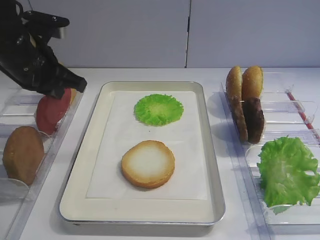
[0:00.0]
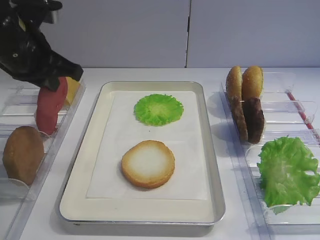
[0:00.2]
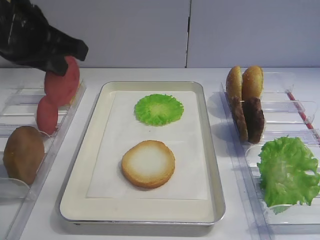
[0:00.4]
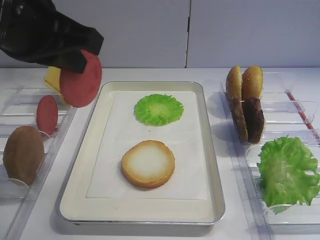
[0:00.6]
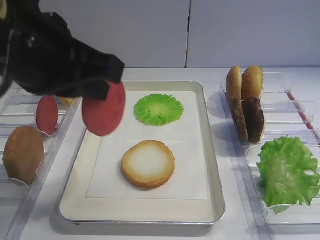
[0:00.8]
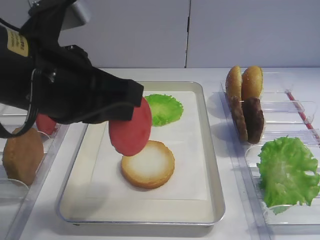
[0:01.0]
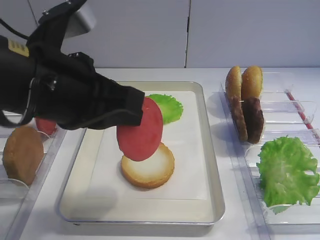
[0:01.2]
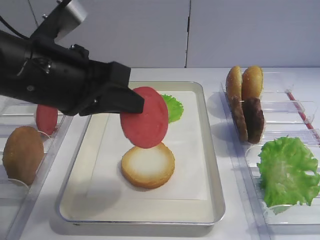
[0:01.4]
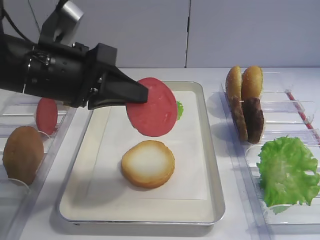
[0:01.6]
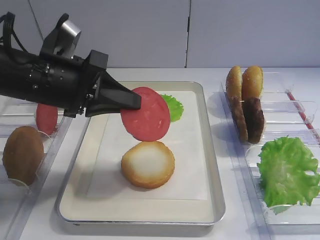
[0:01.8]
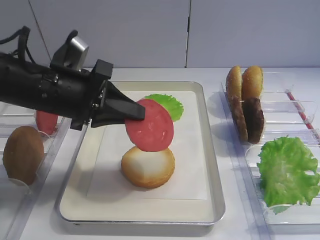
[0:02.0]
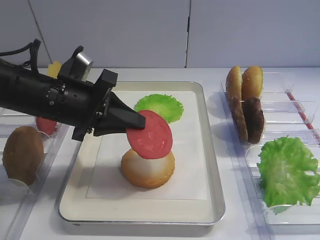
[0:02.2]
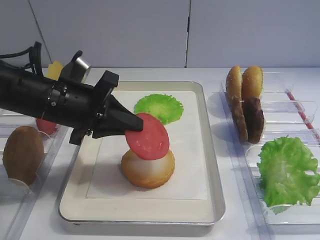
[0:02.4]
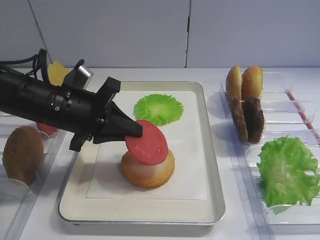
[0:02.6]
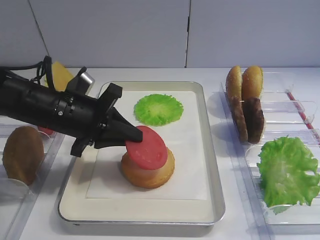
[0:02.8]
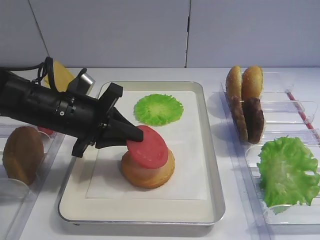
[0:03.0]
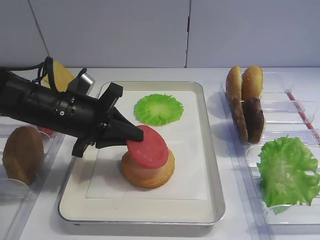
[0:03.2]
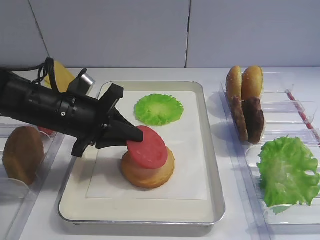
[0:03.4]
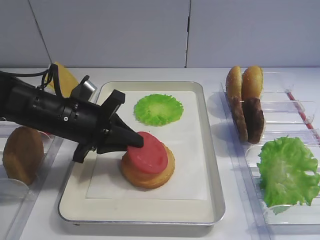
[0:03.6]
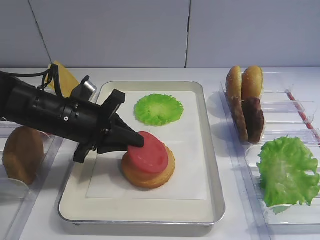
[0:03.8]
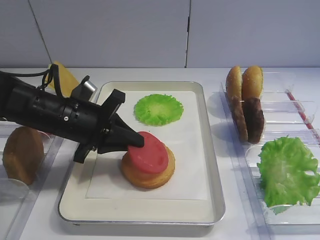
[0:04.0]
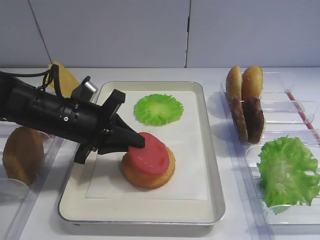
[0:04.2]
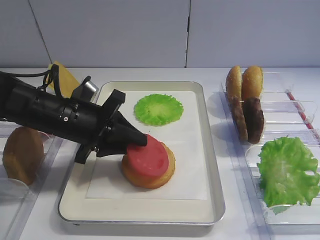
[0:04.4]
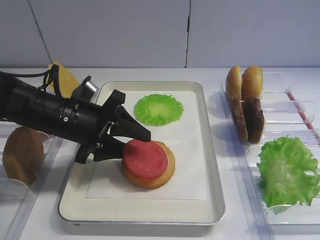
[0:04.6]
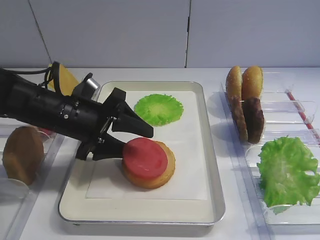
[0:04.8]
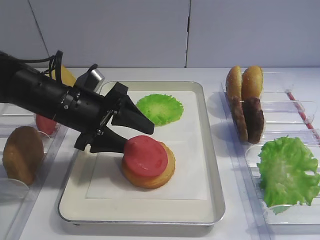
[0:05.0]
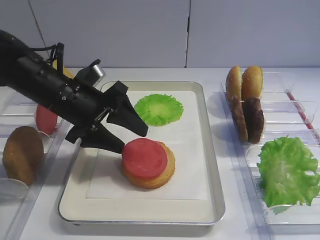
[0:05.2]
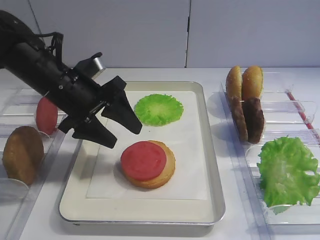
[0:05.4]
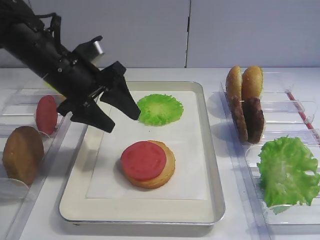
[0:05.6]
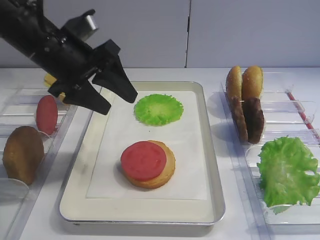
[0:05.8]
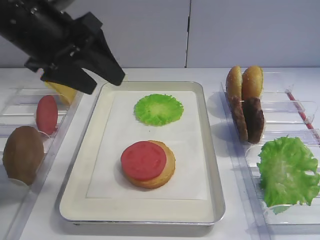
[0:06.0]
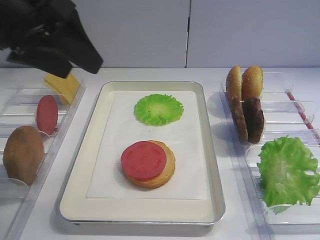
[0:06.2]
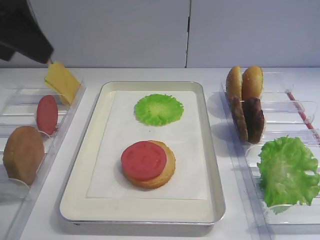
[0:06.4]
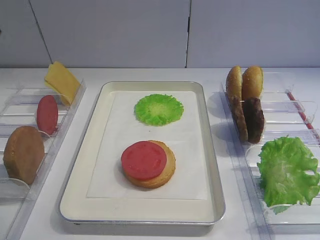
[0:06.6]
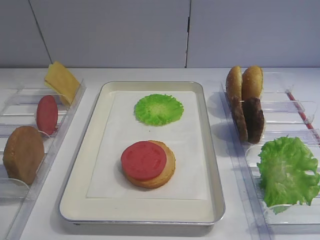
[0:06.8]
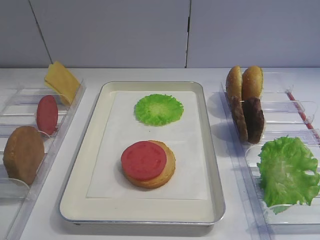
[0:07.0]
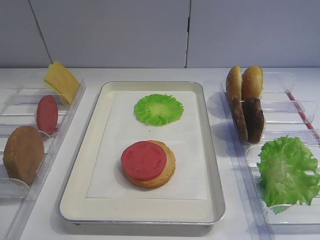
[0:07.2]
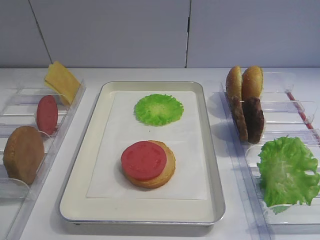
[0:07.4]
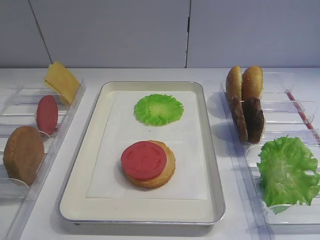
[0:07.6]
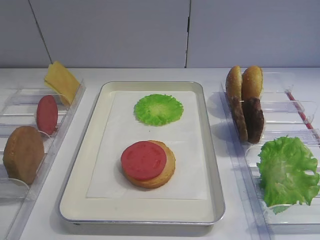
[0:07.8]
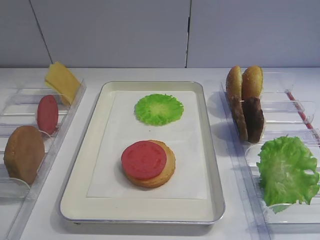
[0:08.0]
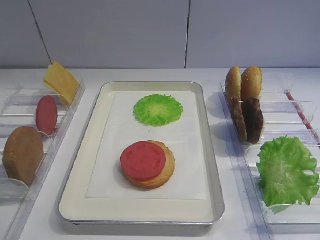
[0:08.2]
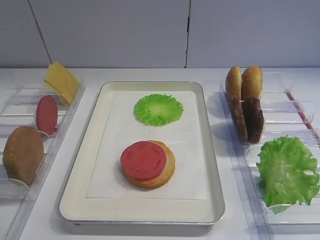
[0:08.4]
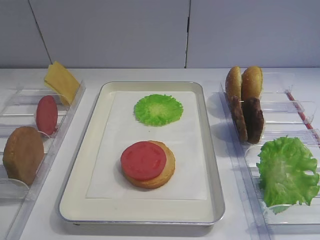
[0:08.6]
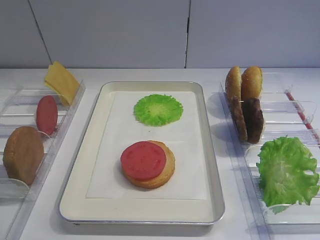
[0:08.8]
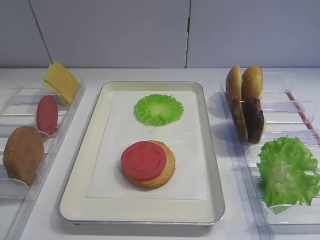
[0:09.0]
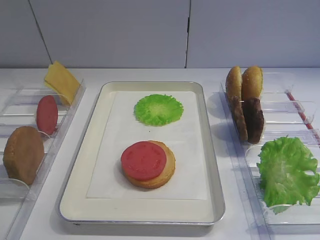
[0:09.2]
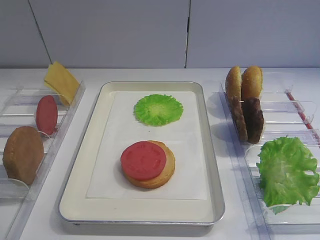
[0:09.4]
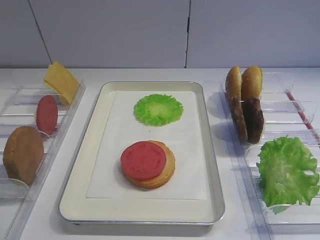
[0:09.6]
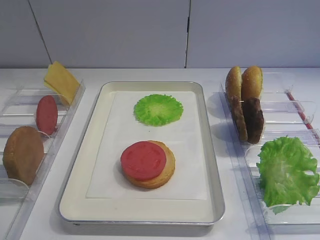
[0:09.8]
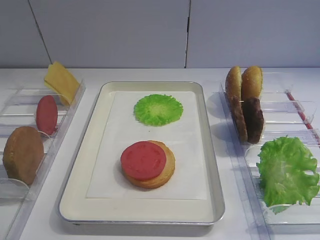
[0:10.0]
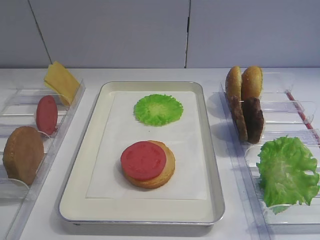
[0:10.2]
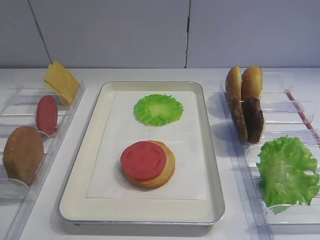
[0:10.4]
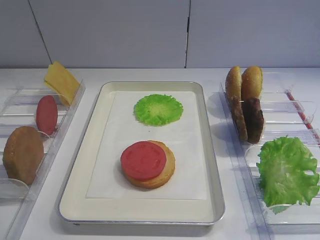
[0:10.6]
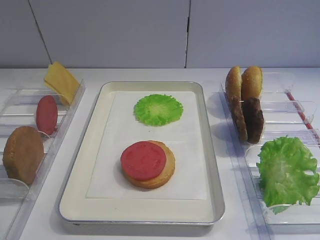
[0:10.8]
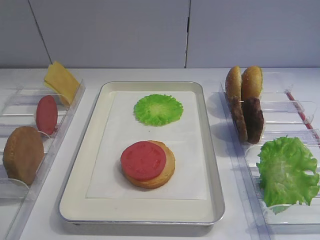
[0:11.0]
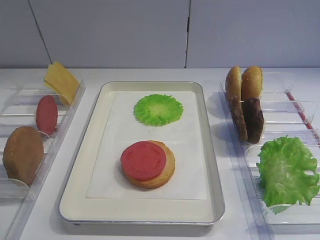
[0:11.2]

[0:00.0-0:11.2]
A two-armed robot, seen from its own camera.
Step, 0:00.2 to 0:05.6: Place the tomato slice on the bread slice with the left gripper.
0:00.0 to 0:01.6: The left gripper moves backward and to the right, approximately 10 cm.
0:01.6 to 0:03.2: The left gripper moves downward, roughly 10 cm.
0:03.2 to 0:04.8: The left gripper opens up.
0:04.8 to 0:06.4: The left gripper travels upward by some 20 cm.
0:06.4 to 0:08.0: The left gripper heads backward and downward, covering roughly 25 cm.
0:09.6 to 0:11.2: Both grippers stay about where they are.

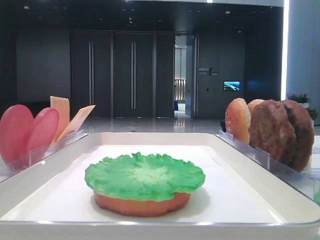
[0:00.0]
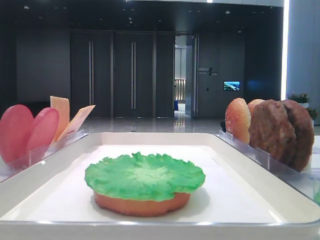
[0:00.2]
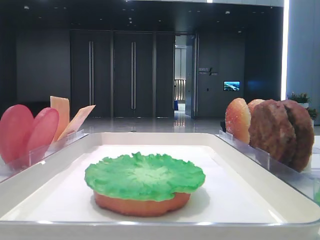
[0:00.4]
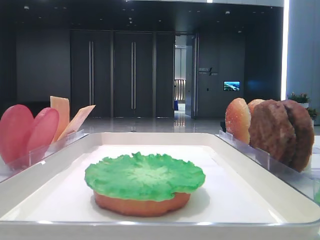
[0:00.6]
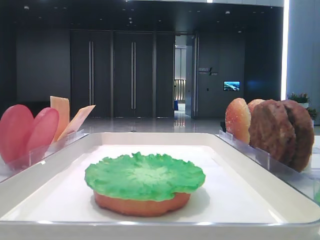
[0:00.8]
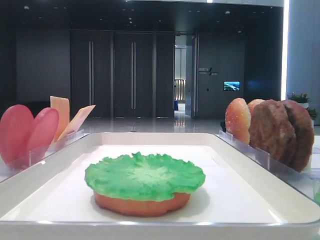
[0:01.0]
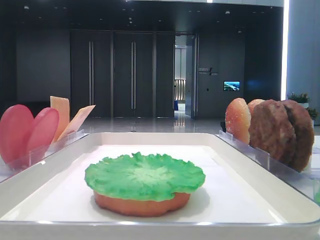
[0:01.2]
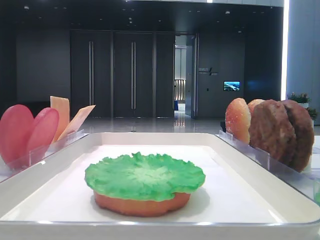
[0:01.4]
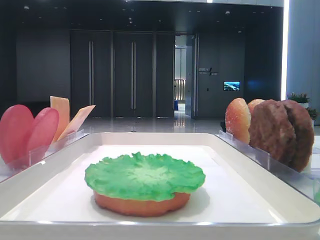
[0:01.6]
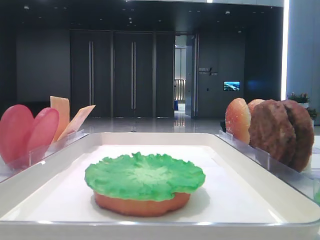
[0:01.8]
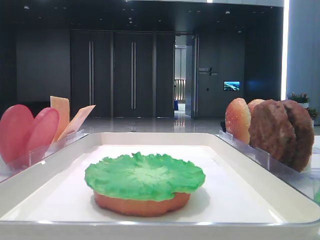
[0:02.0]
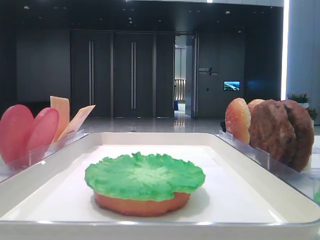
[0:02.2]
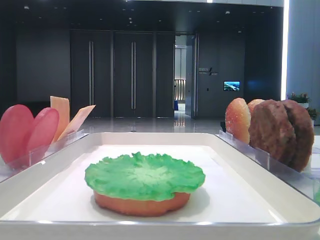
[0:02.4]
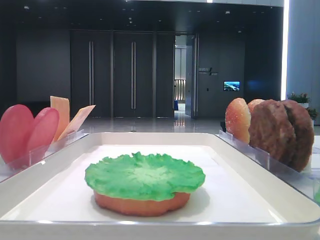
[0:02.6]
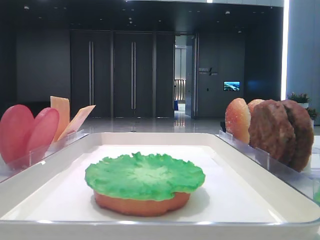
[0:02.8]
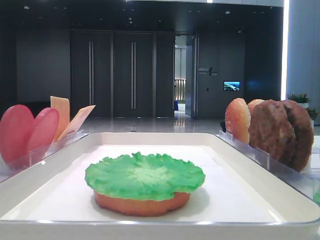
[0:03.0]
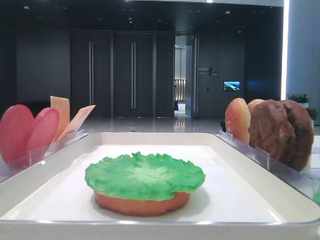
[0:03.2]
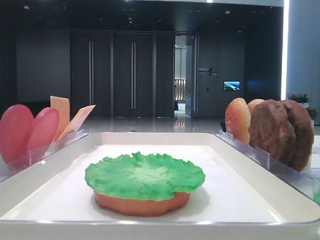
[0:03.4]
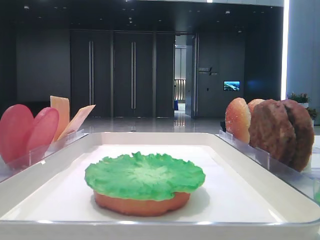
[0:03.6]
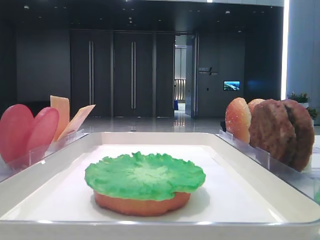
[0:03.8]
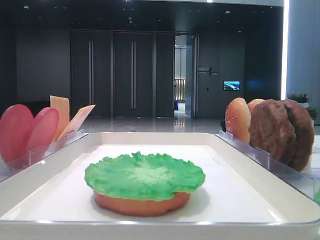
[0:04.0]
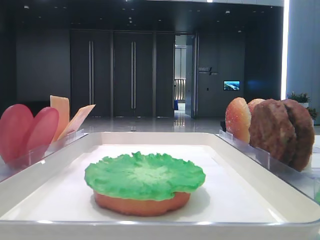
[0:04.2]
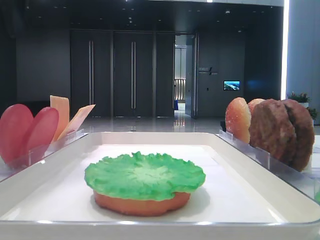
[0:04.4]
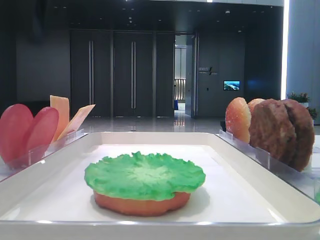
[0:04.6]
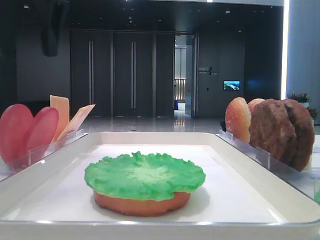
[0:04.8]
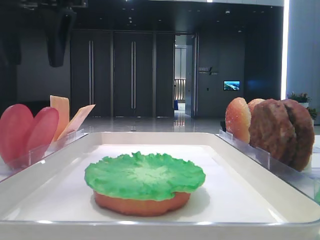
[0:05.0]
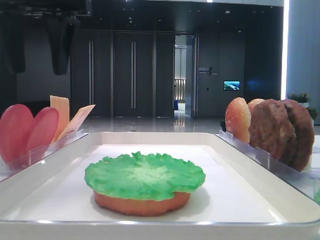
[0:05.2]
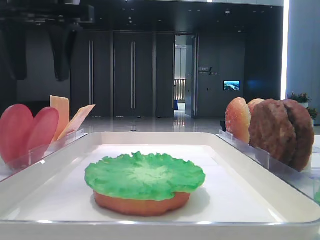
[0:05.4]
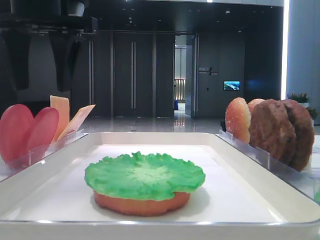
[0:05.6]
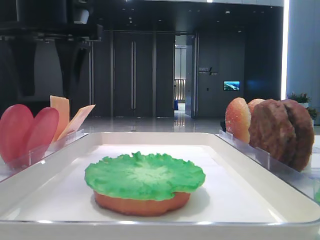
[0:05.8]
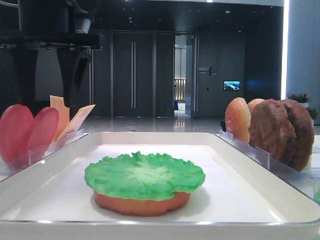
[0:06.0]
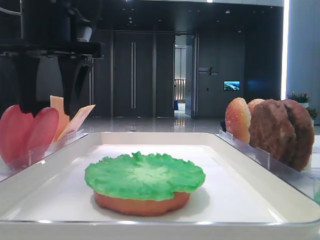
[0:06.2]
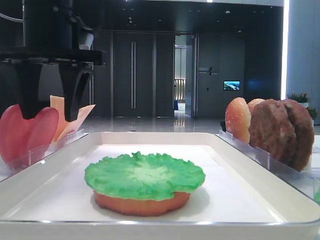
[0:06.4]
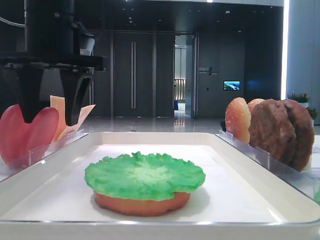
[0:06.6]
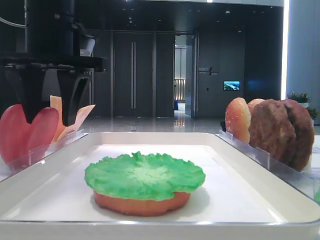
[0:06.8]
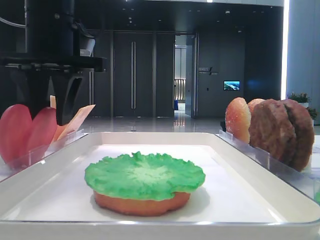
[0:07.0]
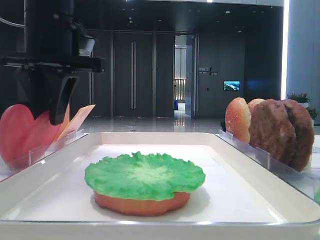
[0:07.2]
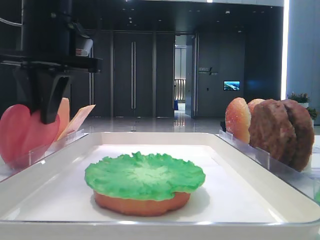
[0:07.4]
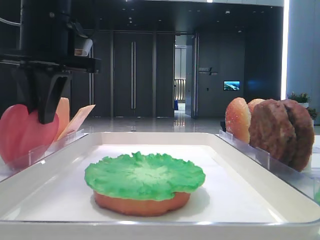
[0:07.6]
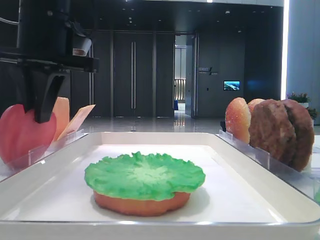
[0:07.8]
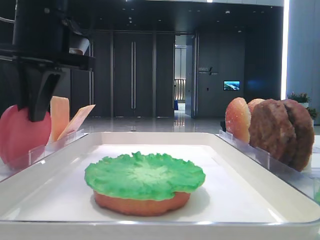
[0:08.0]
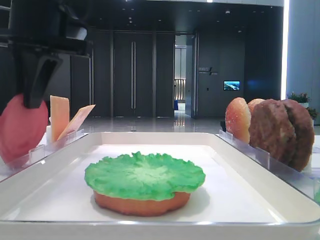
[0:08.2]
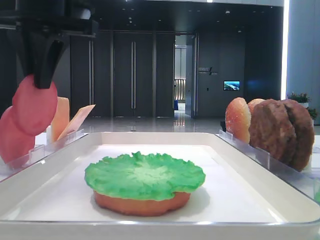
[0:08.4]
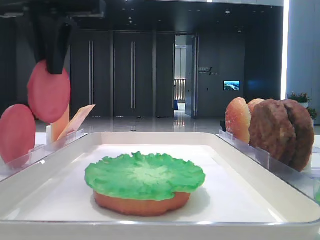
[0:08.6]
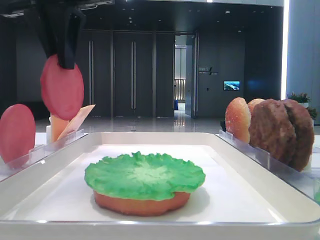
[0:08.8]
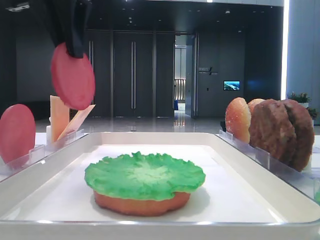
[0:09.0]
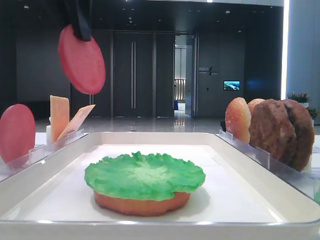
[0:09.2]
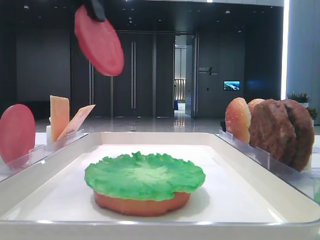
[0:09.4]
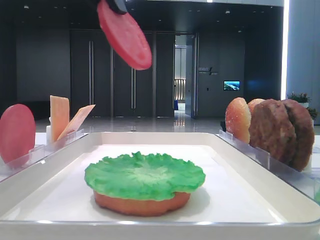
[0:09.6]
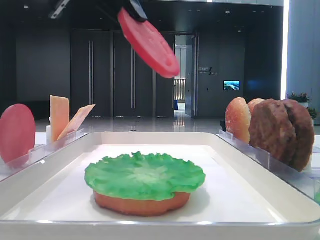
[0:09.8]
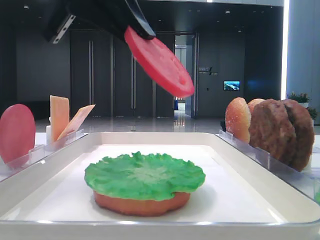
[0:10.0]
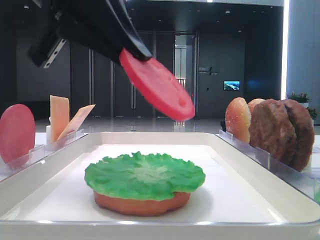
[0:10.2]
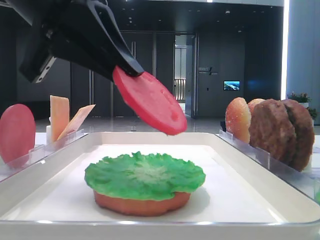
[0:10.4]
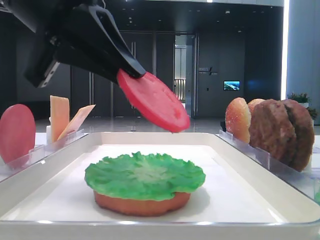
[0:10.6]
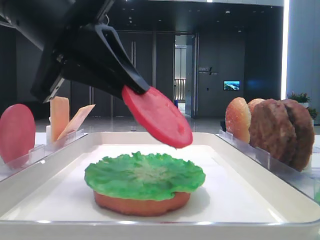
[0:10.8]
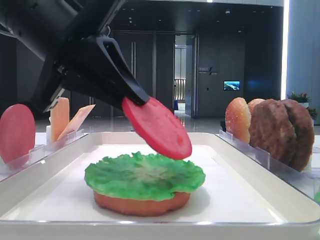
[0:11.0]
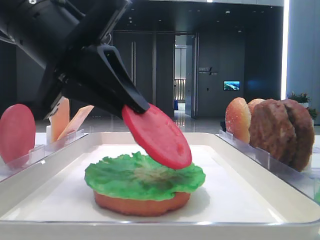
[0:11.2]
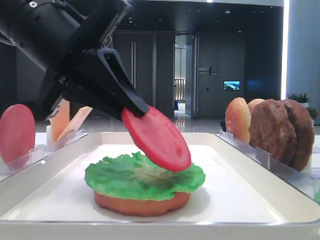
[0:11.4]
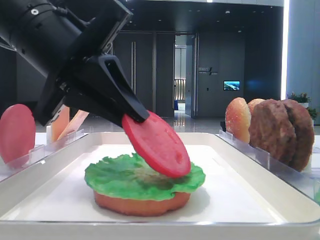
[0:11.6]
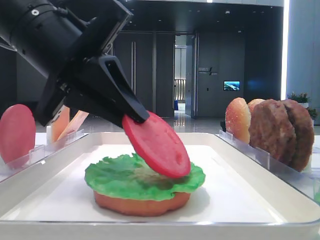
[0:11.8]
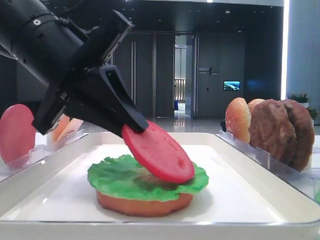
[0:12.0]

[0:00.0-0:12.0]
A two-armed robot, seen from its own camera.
Step, 0:00.0 to 0:07.2: Pick up the tomato slice with the left hand.
0:03.0 to 0:04.4: The left gripper shifts some 10 cm to the right and forward.
0:04.4 to 0:06.0: The left gripper moves downward and to the right, roughly 10 cm.
0:06.0 to 0:07.6: The left gripper closes up.
0:07.6 to 0:09.0: The left gripper shifts about 10 cm upward.
0:09.0 to 0:10.4: The left gripper is displaced downward and backward by some 10 cm.
0:10.4 to 0:12.0: The left gripper goes some 5 cm downward.
